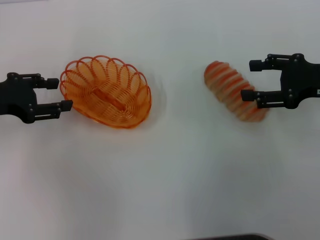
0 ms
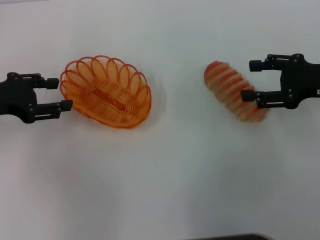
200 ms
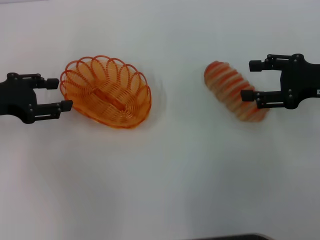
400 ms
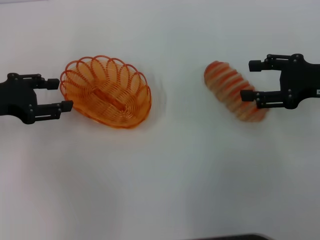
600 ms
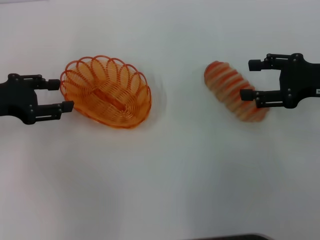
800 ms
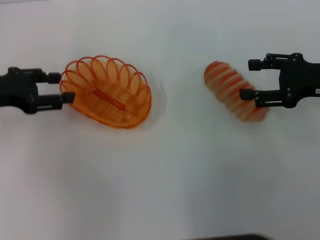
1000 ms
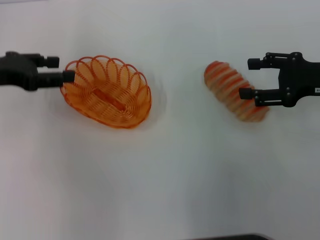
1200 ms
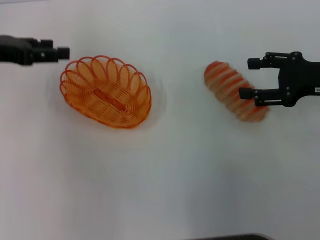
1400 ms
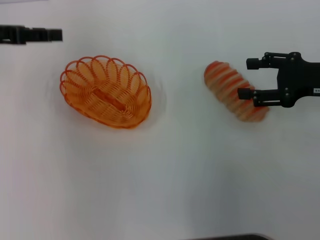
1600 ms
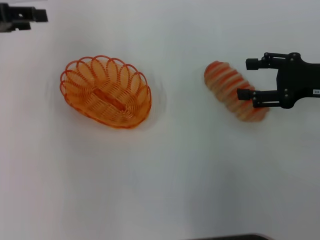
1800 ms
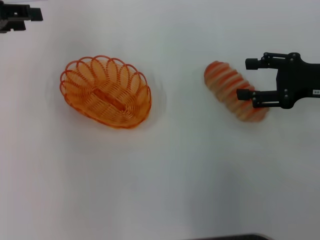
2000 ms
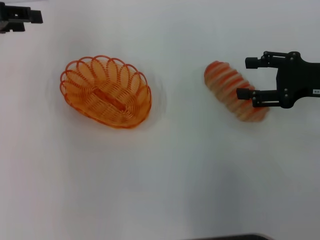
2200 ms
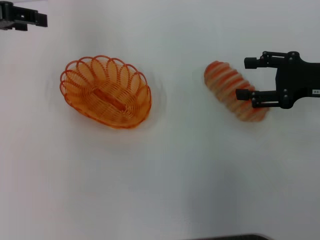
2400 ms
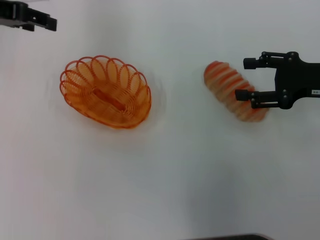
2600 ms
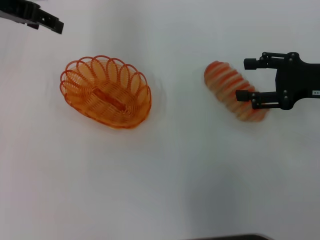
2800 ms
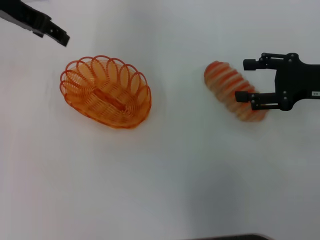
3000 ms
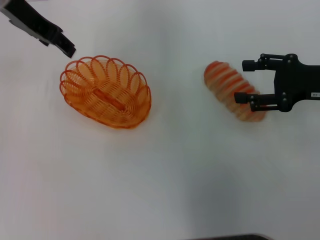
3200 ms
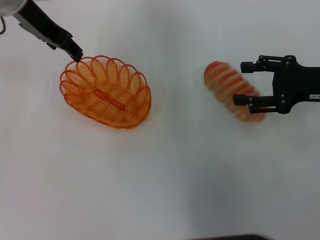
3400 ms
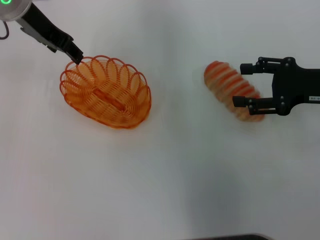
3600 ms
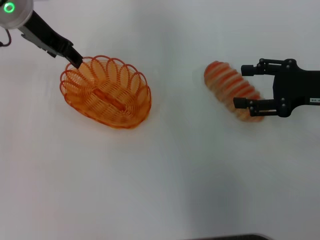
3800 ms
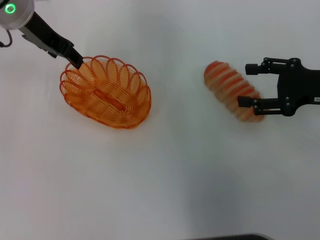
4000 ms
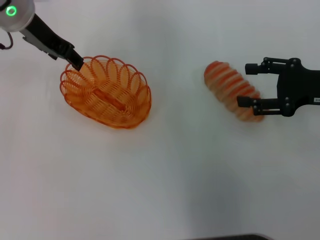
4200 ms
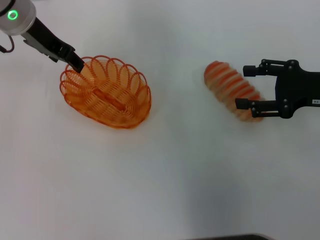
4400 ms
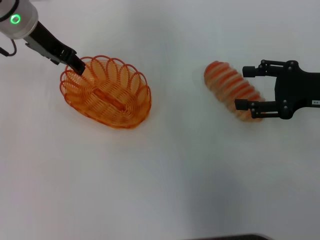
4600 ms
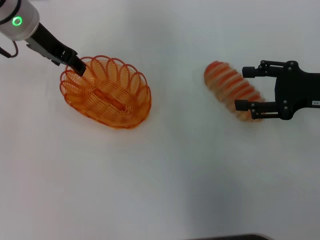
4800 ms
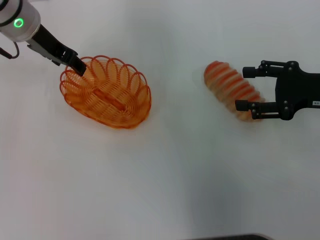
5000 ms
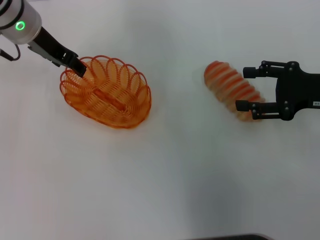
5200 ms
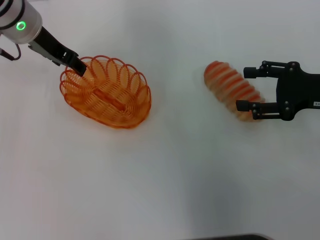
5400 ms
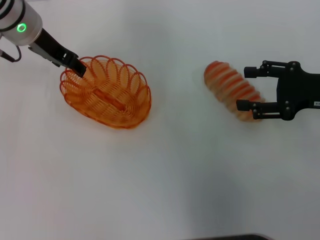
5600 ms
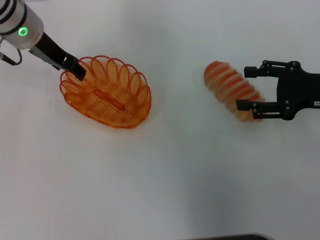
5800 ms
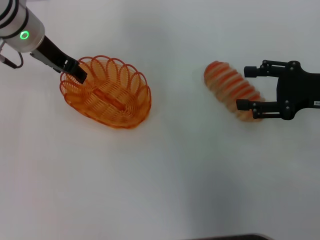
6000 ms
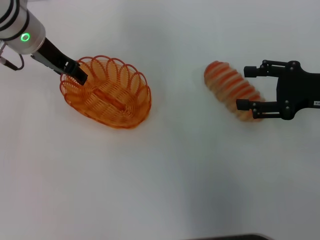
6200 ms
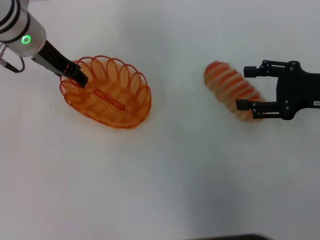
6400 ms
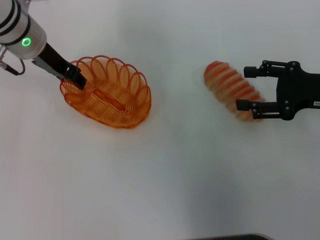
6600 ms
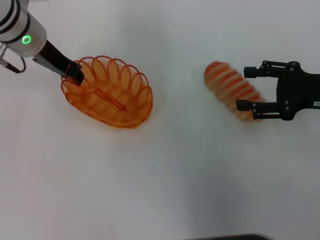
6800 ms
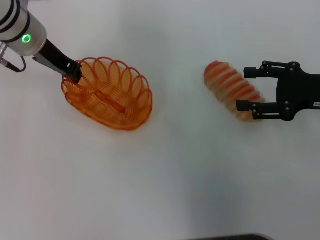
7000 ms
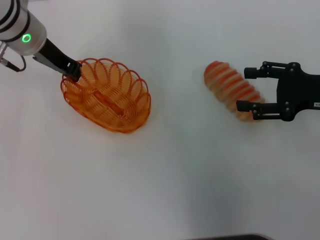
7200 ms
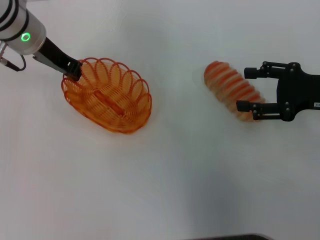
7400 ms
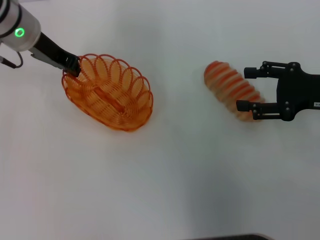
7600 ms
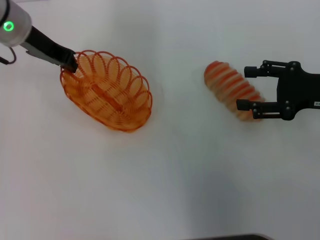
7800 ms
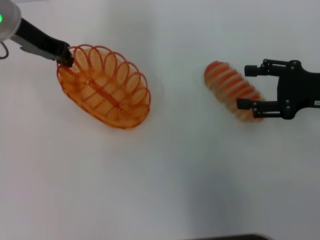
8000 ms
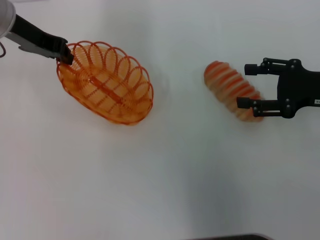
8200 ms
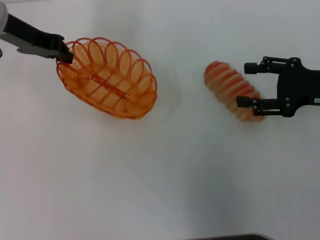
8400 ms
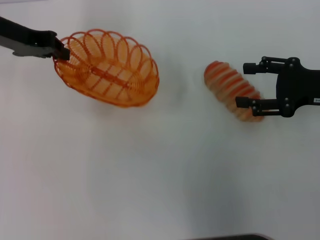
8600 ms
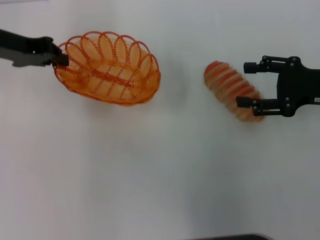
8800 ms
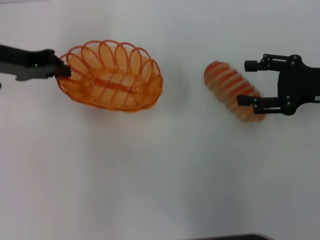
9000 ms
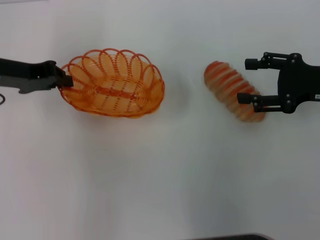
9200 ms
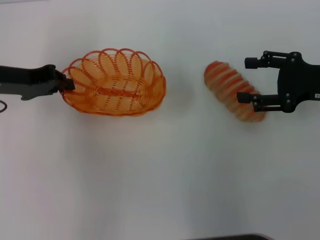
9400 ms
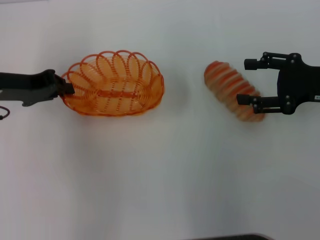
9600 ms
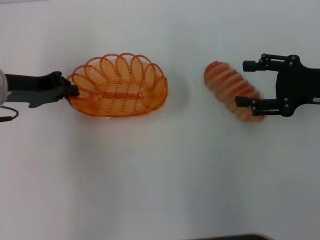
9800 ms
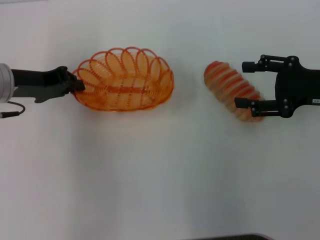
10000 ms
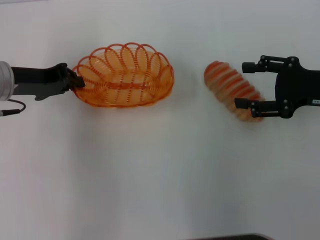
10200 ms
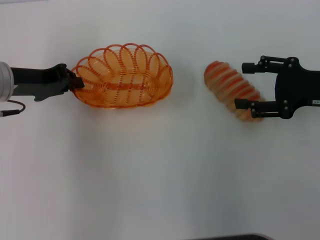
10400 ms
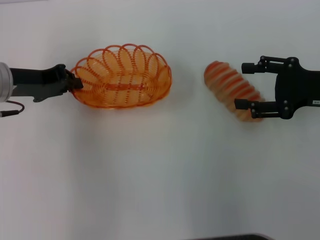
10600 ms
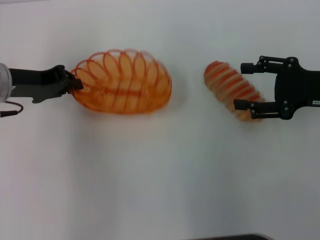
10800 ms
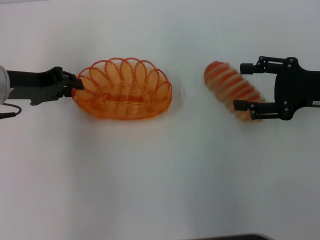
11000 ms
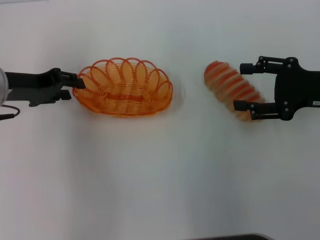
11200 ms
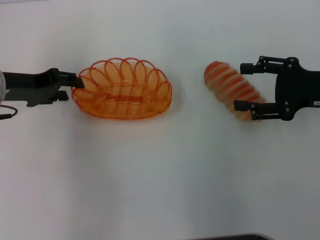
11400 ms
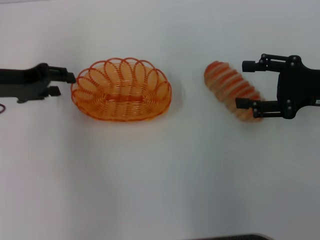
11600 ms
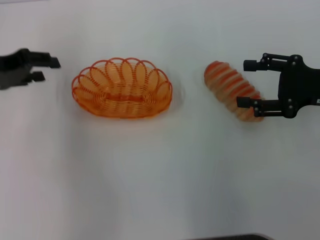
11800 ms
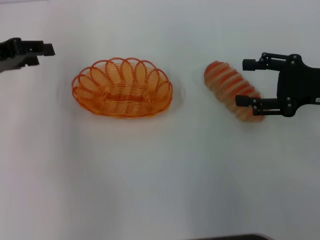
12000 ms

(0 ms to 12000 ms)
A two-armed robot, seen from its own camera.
Step, 0 ms - 7800 ms: Pick up the basket with the left gripper.
Step, 8000 ms - 11600 ms: Place the basket in the center of view with the left gripper.
0 ms - 1600 ms: The left gripper travels upward and forward by roughly 10 cm.
1600 ms - 3000 ms: The left gripper goes about 10 cm to the right, forward and upward.
3000 ms - 4400 ms: The left gripper goes approximately 5 cm downward.
4400 ms - 6000 ms: The grippers move only a little.
6000 ms - 7600 ms: The left gripper closes its fingers.
7600 ms - 9000 ms: The left gripper goes approximately 10 cm to the left and backward.
9000 ms - 10400 ms: The grippers move only a little.
10400 ms - 12000 ms: The left gripper shifts about 5 cm to the left, and opens its fingers.

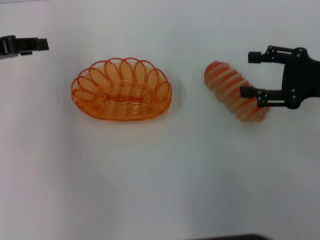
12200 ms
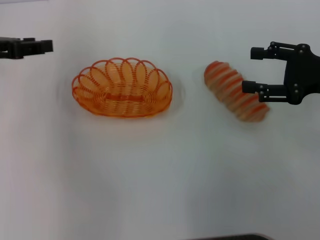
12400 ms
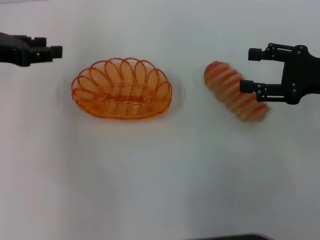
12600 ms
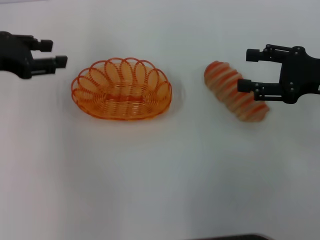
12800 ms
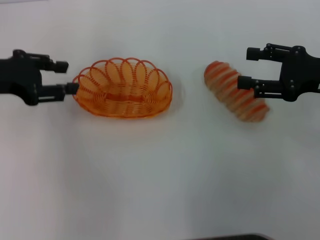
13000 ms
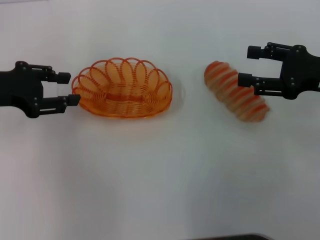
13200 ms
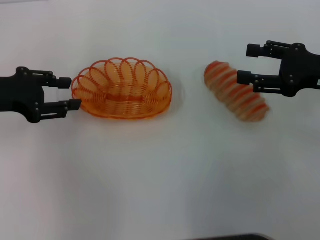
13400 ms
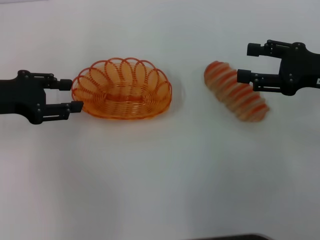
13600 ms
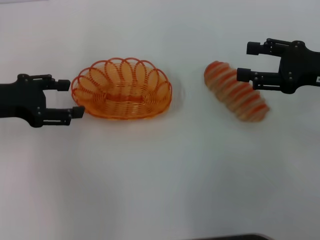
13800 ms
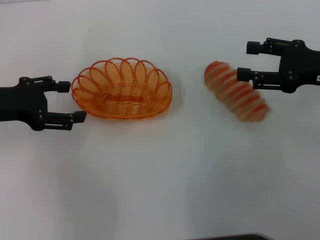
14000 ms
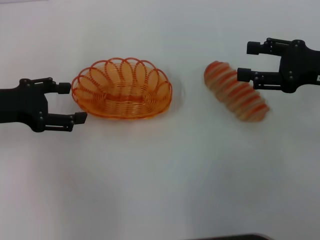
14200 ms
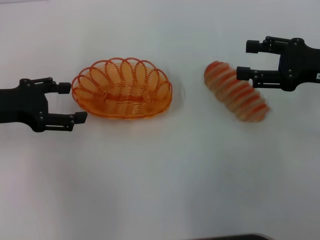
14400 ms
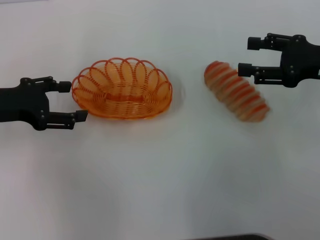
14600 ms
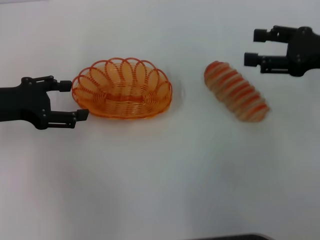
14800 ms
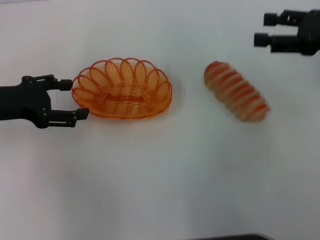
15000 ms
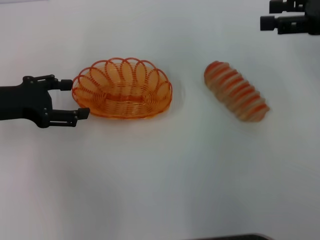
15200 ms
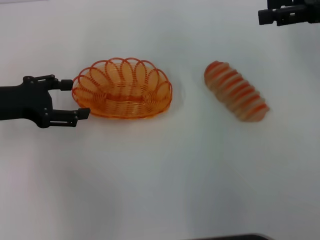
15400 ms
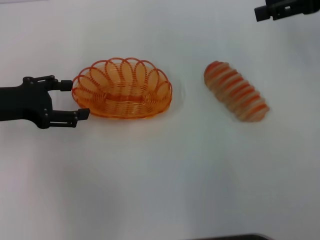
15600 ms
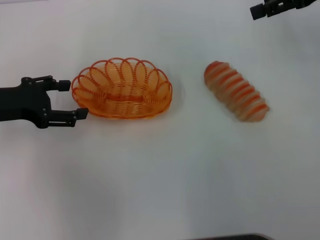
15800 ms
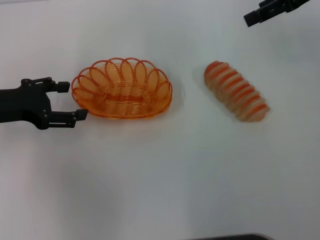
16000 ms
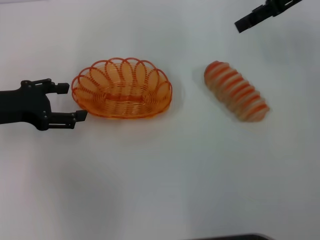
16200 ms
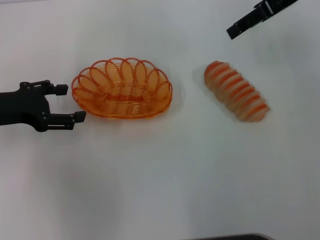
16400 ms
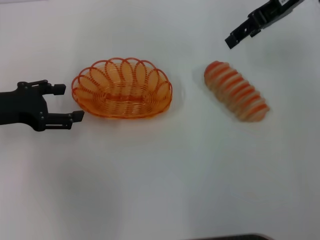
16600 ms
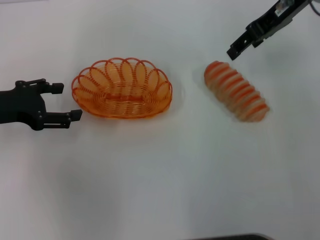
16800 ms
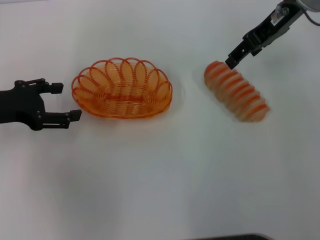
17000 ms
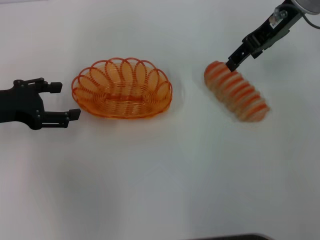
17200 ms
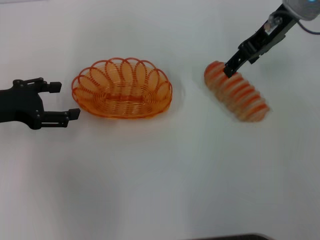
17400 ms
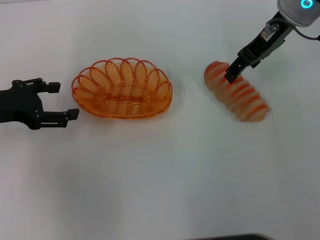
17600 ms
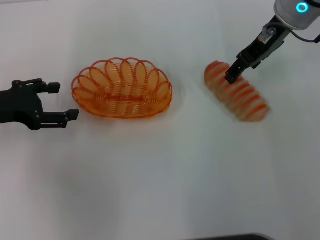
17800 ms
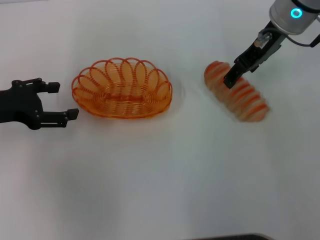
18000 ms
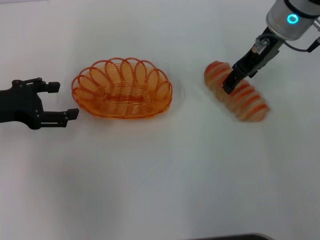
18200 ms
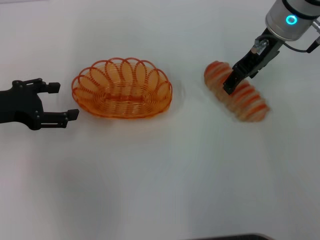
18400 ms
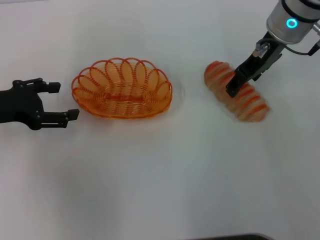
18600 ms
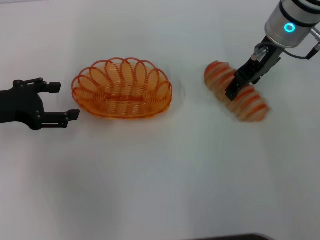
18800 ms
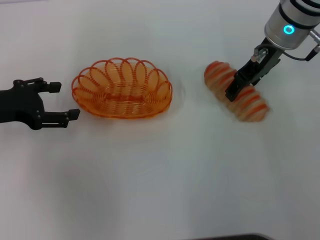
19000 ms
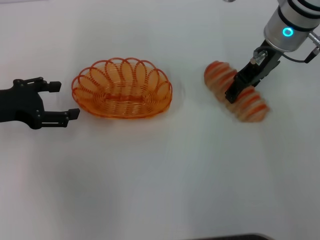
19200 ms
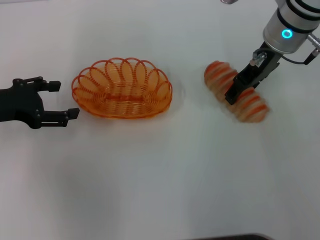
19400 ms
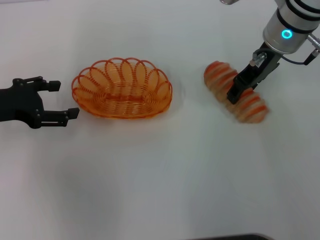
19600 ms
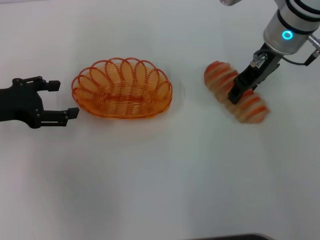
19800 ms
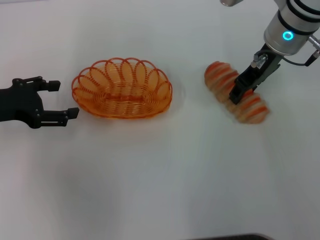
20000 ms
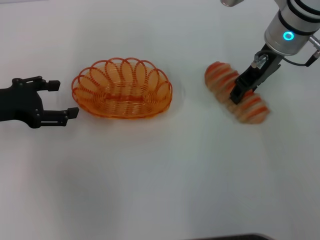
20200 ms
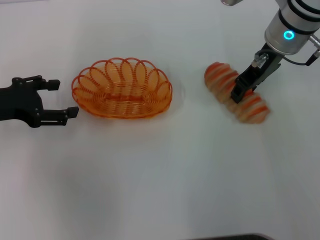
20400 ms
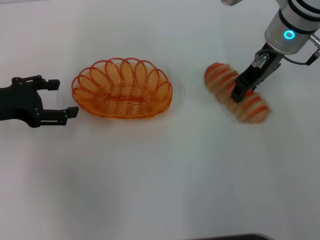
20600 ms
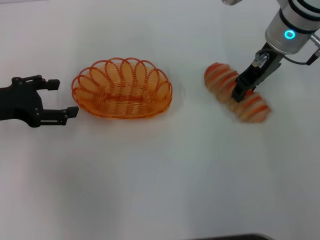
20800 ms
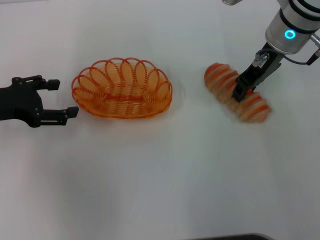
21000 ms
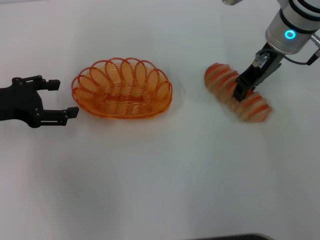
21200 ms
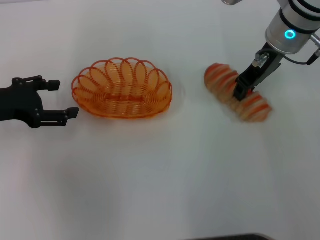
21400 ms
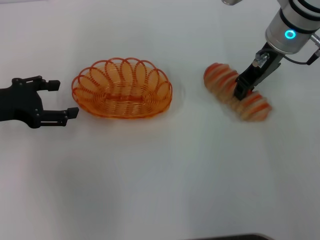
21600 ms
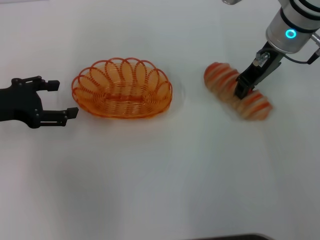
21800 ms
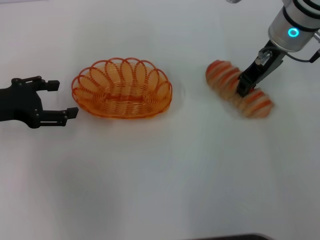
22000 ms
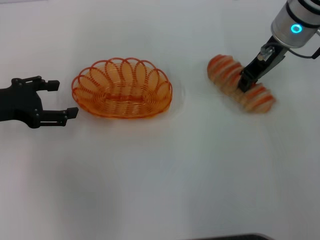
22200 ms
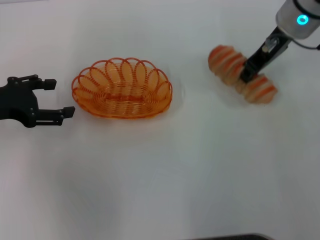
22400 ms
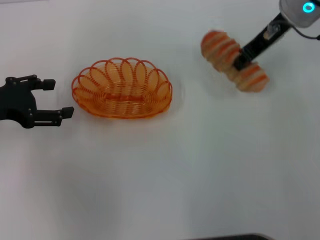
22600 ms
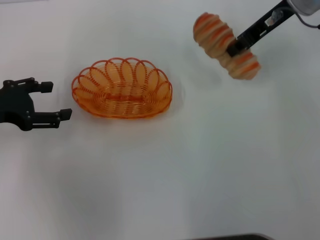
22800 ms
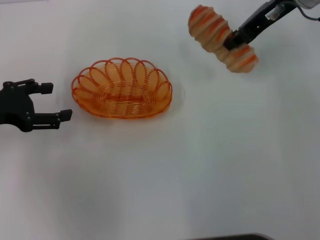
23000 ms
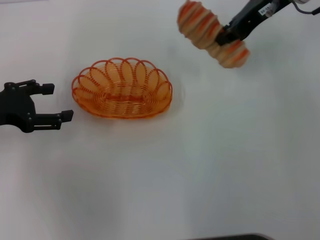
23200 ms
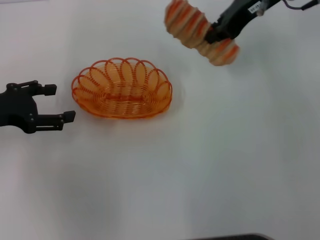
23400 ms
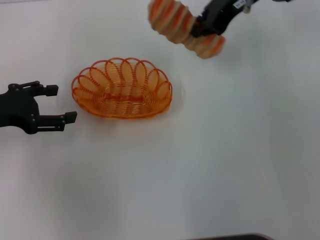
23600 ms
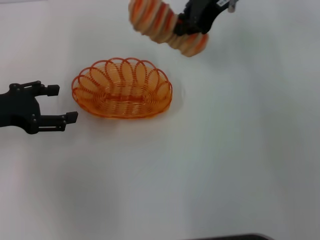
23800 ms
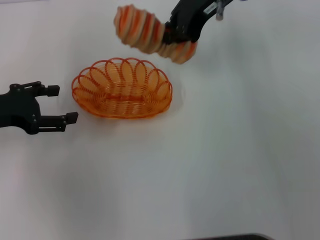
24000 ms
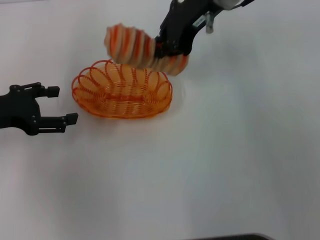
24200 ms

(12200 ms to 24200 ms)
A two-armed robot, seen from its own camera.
Step, 12200 ms - 22200 ms: Pick up the long bread with the right gripper.
12200 ms - 13800 ms: The left gripper changes place by about 5 cm.
13800 ms - 15200 ms: The right gripper moves upward, approximately 5 cm.
15200 ms - 16600 ms: The right gripper travels to the left and forward by approximately 15 cm.
16600 ms - 18200 ms: The right gripper moves downward, approximately 5 cm.
18200 ms - 19800 ms: The grippers make only small movements.
19800 ms - 21200 ms: The right gripper closes up.
21200 ms - 22600 ms: There are only small adjustments of the grippers.
22600 ms - 24200 ms: The right gripper moves to the left, approximately 10 cm.
